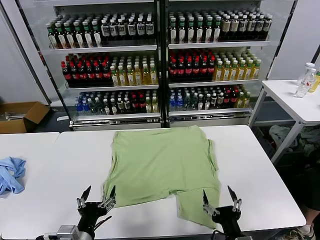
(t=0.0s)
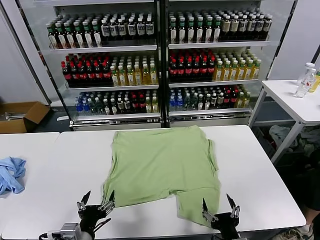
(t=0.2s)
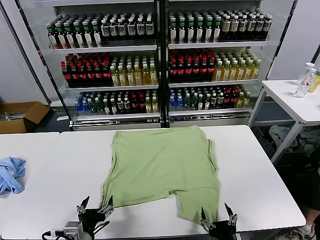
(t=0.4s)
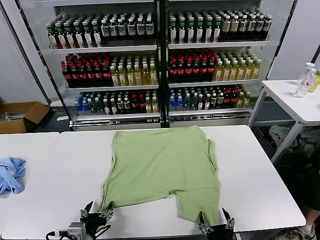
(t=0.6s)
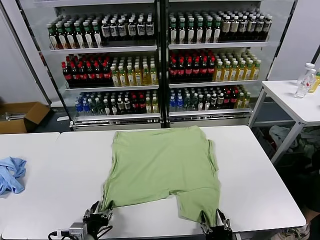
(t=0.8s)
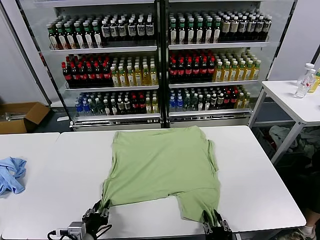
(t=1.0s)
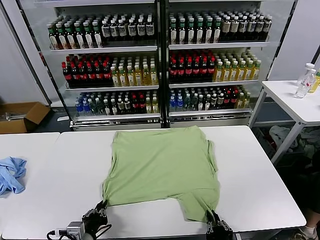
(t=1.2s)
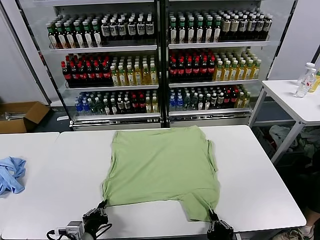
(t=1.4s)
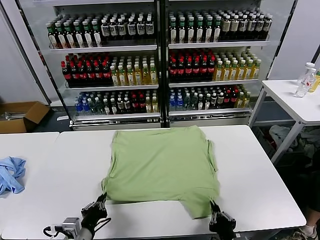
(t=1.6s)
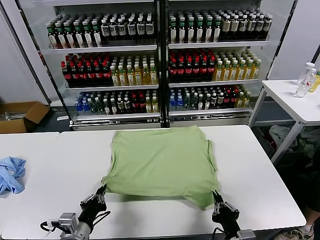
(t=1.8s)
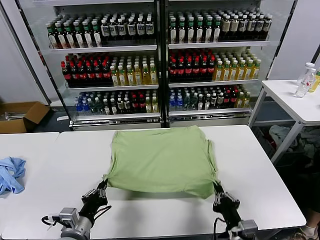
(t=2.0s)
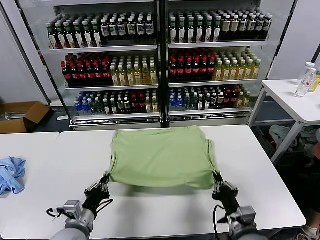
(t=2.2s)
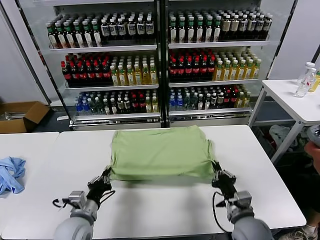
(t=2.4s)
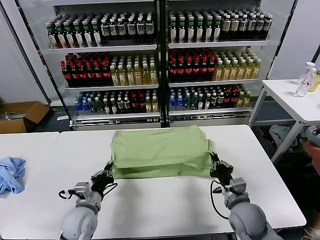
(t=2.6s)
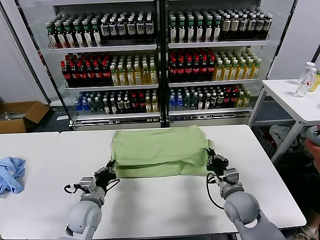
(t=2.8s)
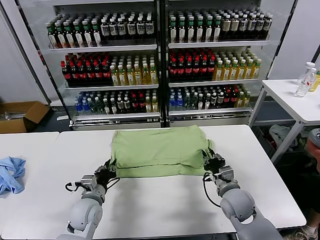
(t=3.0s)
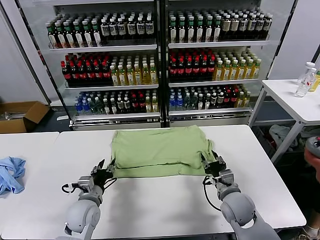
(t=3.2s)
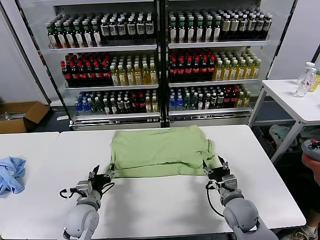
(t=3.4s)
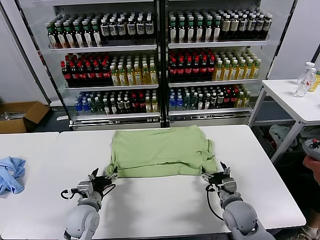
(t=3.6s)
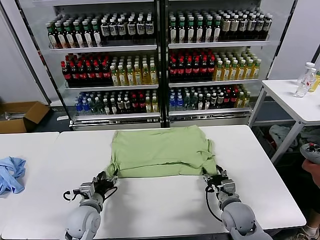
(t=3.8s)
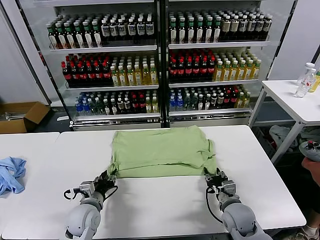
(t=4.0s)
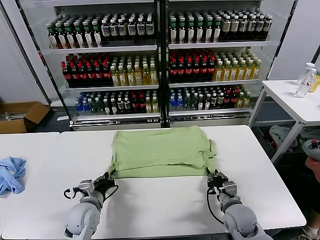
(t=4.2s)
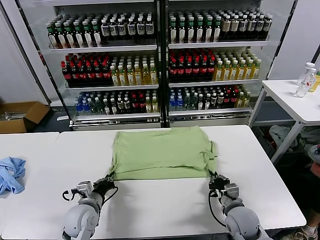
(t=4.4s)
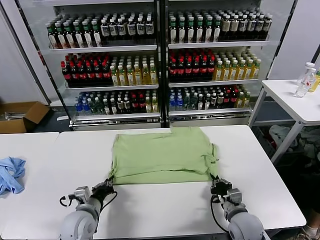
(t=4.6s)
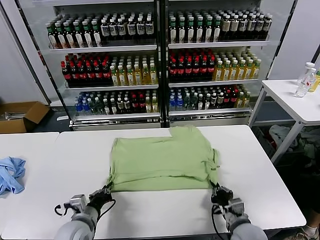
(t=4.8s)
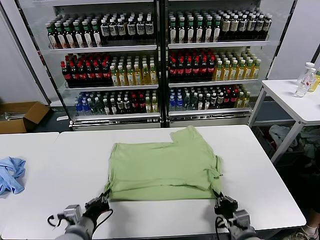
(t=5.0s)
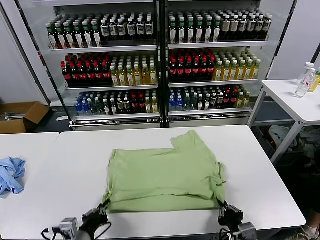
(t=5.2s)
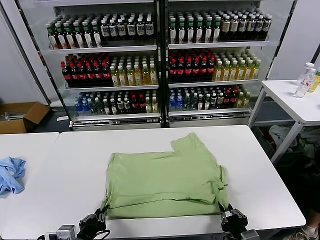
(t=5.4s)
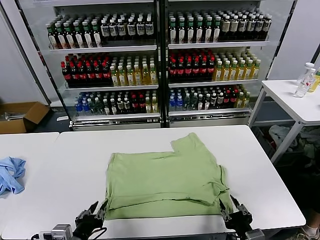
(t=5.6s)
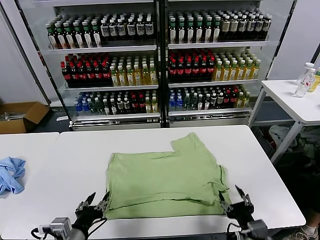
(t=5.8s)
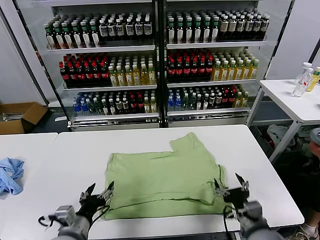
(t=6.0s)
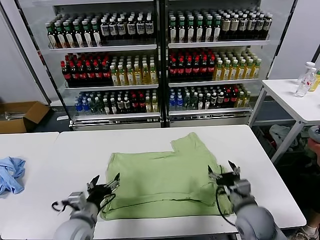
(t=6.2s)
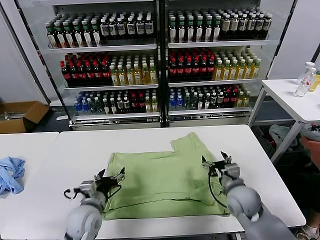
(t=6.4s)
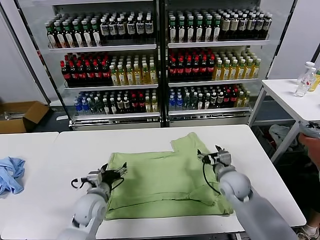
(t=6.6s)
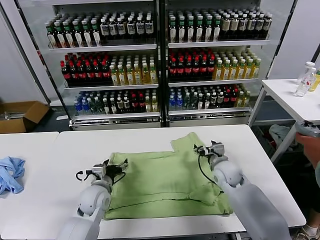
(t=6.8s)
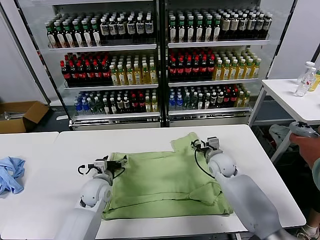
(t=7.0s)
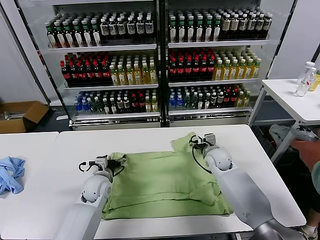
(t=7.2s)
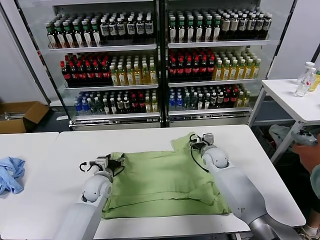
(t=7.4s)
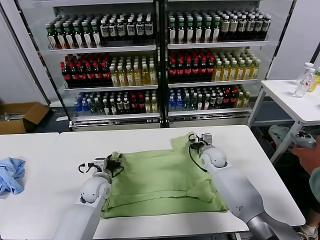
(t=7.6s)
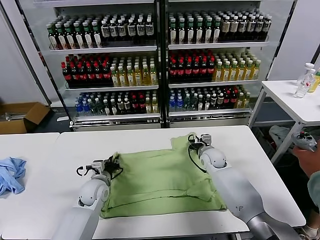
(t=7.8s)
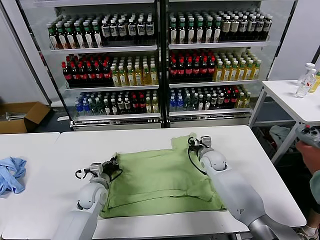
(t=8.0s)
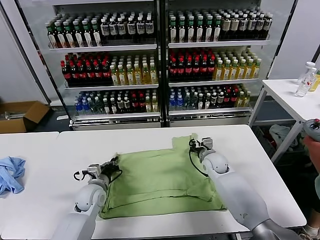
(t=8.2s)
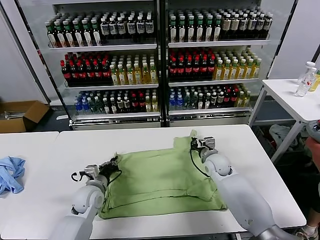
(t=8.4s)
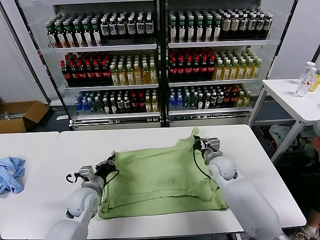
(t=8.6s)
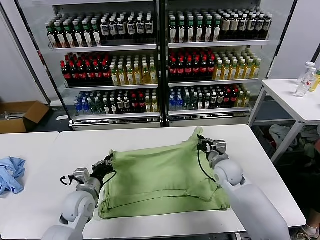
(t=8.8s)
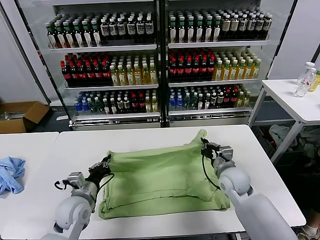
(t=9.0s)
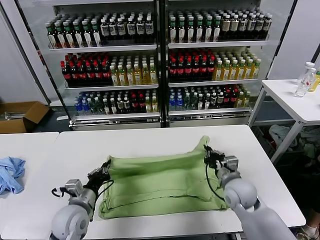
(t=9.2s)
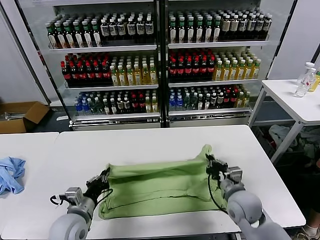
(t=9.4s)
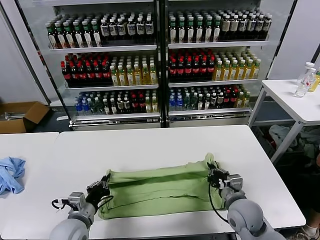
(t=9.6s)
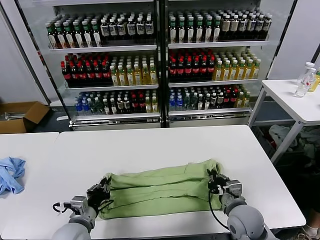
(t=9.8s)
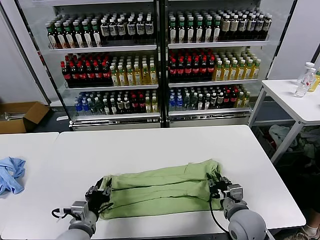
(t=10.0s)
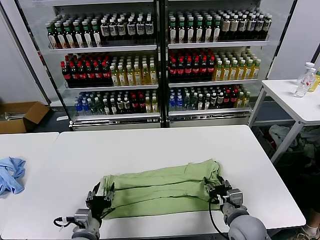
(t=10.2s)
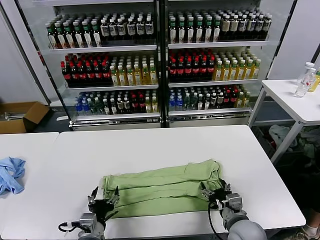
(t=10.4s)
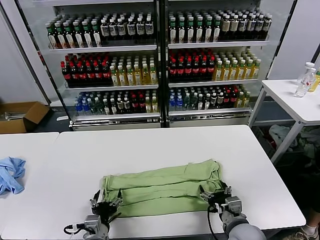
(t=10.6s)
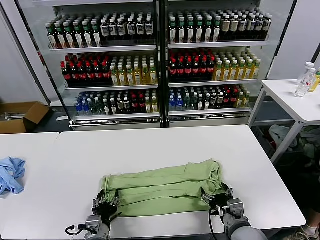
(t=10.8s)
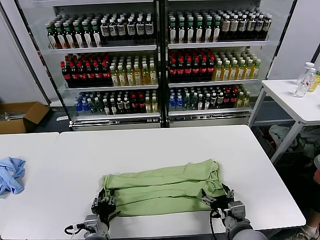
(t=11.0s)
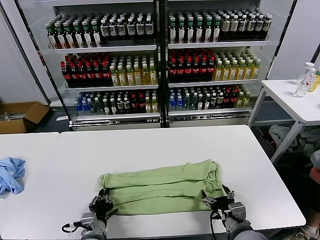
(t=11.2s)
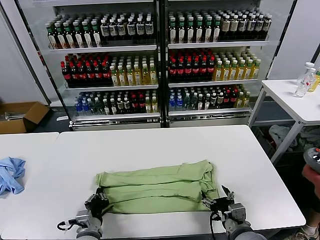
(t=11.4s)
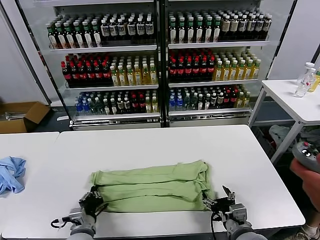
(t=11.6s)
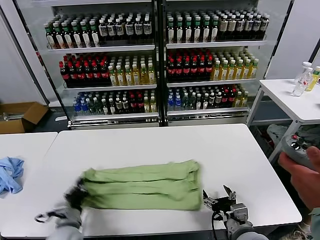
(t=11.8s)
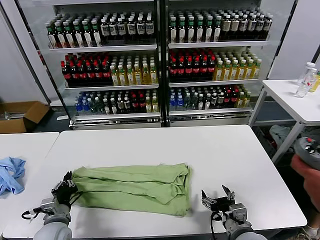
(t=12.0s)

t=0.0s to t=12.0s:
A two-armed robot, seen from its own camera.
Task of the whole recording: fold and organize the clothes.
Step, t=0.0s to t=1.4s: use both grippers simultaneously to clamp the lower edge of the clothing fabric.
Step, t=1.6s to t=3.2s: use both grippers to drag the lower edge of the fabric forward and fold it over the upper edge.
Step, t=3.4s to t=5.4s: Drag the clothes downward with both gripper.
Step, t=5.6s to t=7.8s: use both grippers simultaneously to clamp the upper edge of the clothing fabric.
Step, t=8.2s to t=10.0s: use both grippers to drag the upper edge of the fabric backward and fold it over the lower edge.
Step, t=10.2s to t=11.0s: use the left gripper to clamp the left edge of the fabric.
t=1.6s to t=3.0s: The grippers both shift forward by about 15 cm. The right gripper opens. Meanwhile the left gripper opens up.
t=3.0s to t=4.4s: The right gripper changes place by about 5 cm, and closes. Meanwhile the left gripper opens, then closes again.
t=4.4s to t=6.0s: The right gripper moves upward, approximately 10 cm, goes backward and returns, approximately 15 cm each way, and opens its fingers; the left gripper goes about 10 cm backward and upward, and opens.
t=6.0s to t=7.6s: Both grippers travel together forward, approximately 25 cm. The left gripper closes up; the right gripper closes up.
t=7.6s to t=9.0s: The two grippers go approximately 10 cm backward. The left gripper closes up. Meanwhile the right gripper closes its fingers.
t=9.0s to t=10.4s: The left gripper heads backward and to the right, covering roughly 15 cm, and opens up; the right gripper is displaced backward by some 15 cm, and opens.
t=10.4s to t=12.0s: The left gripper heads to the left and forward, covering some 15 cm, and closes.

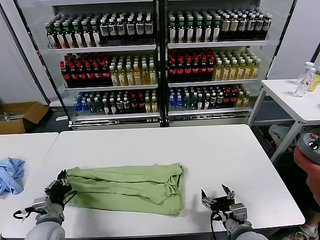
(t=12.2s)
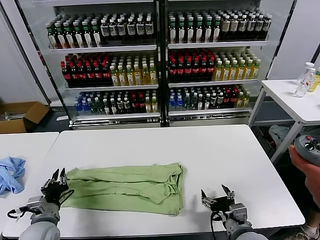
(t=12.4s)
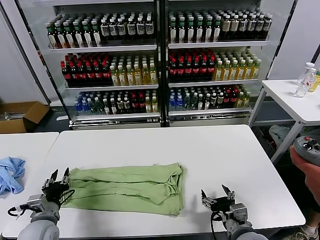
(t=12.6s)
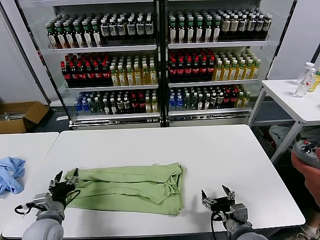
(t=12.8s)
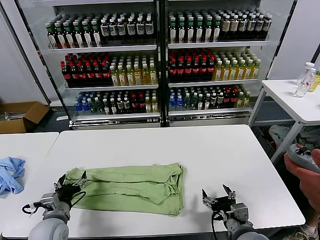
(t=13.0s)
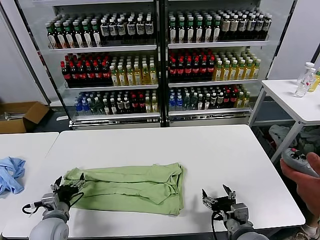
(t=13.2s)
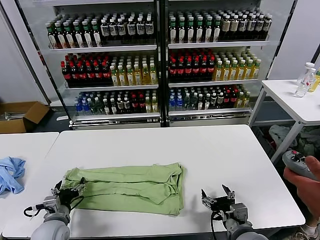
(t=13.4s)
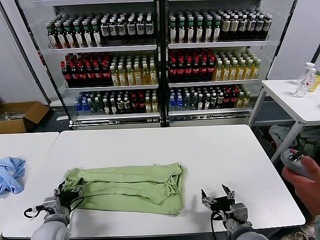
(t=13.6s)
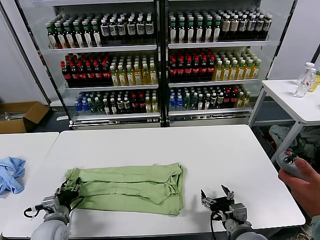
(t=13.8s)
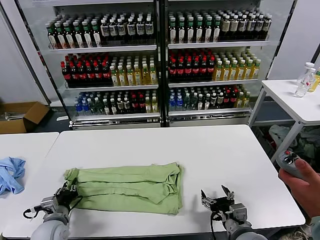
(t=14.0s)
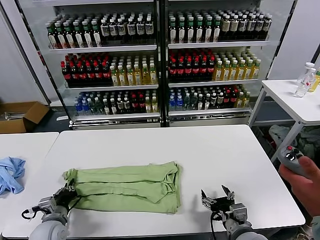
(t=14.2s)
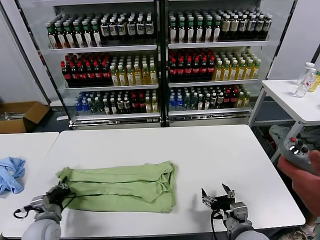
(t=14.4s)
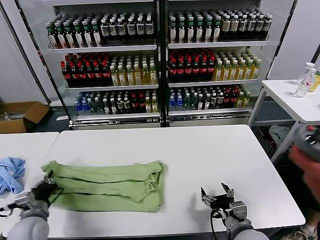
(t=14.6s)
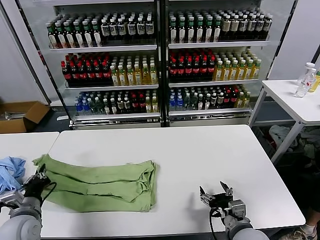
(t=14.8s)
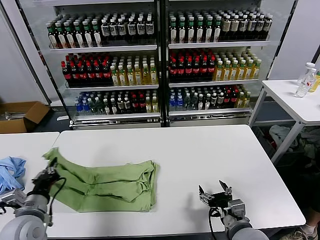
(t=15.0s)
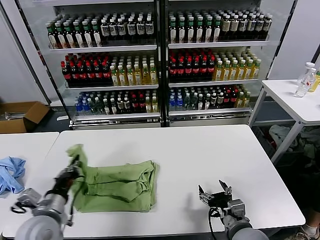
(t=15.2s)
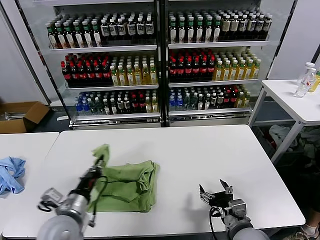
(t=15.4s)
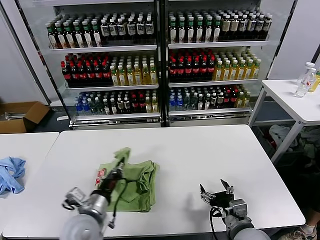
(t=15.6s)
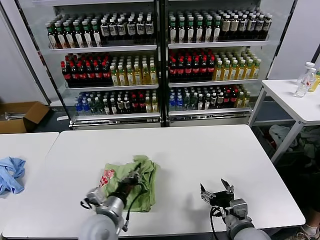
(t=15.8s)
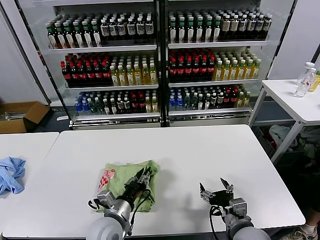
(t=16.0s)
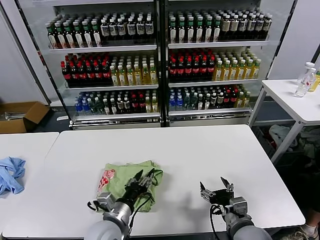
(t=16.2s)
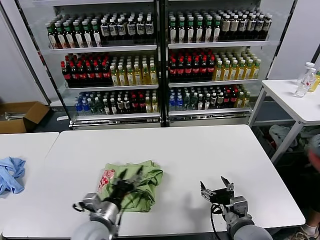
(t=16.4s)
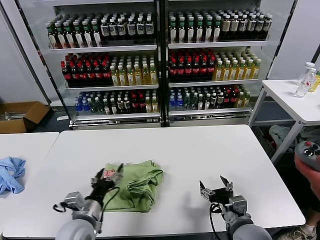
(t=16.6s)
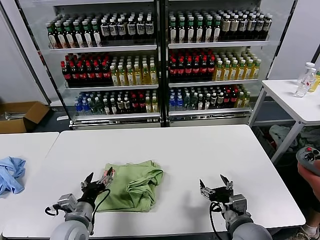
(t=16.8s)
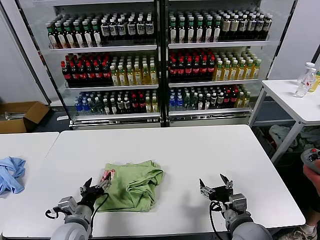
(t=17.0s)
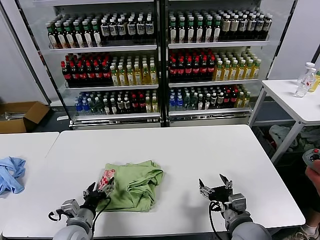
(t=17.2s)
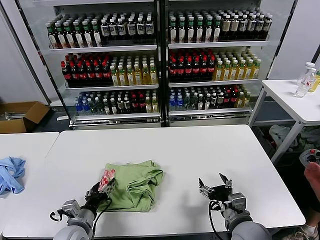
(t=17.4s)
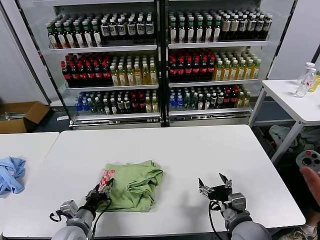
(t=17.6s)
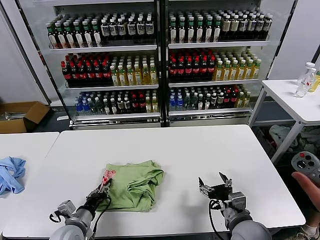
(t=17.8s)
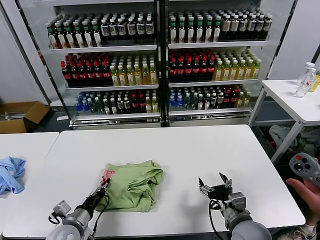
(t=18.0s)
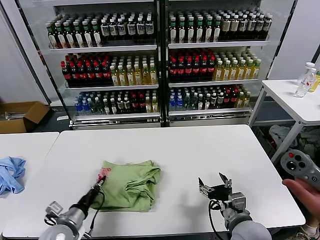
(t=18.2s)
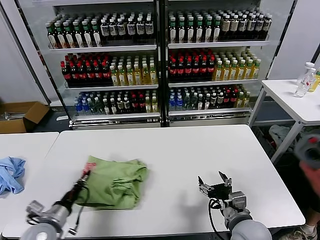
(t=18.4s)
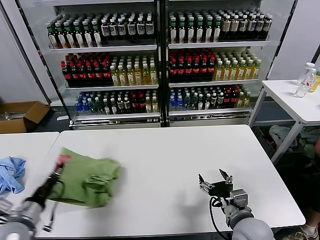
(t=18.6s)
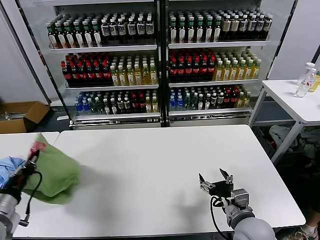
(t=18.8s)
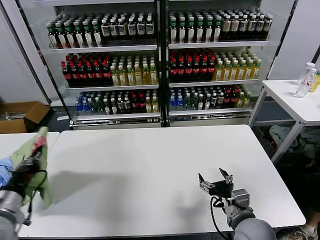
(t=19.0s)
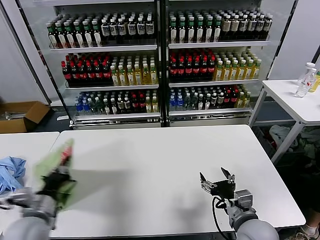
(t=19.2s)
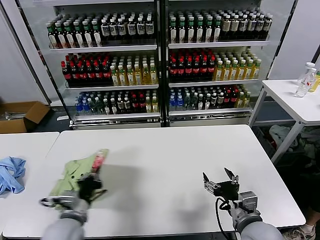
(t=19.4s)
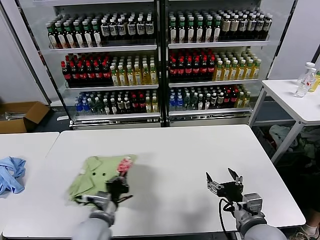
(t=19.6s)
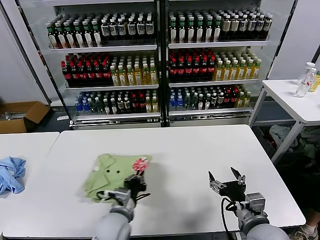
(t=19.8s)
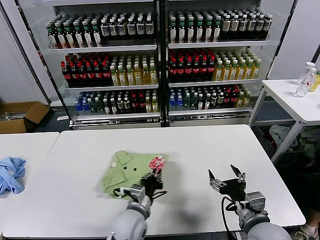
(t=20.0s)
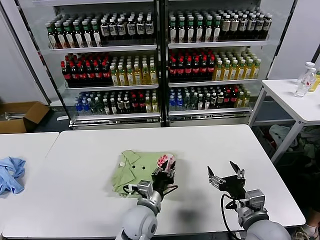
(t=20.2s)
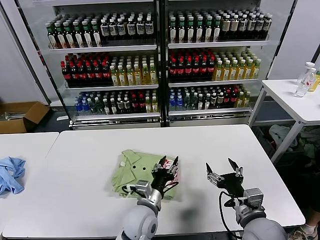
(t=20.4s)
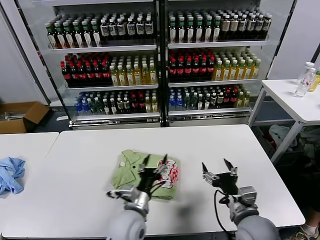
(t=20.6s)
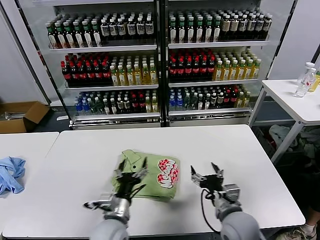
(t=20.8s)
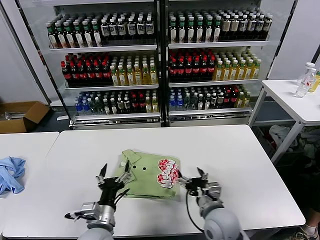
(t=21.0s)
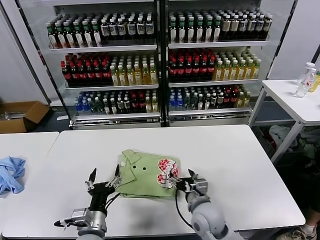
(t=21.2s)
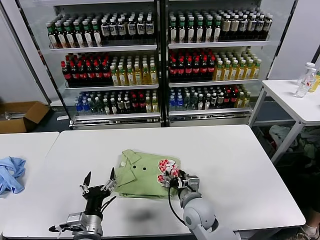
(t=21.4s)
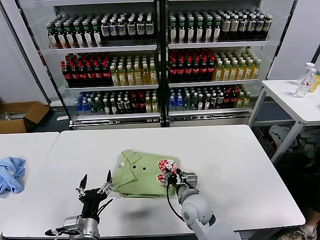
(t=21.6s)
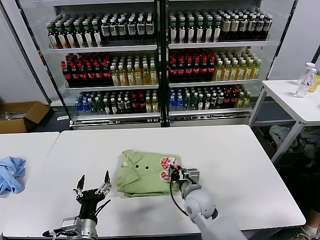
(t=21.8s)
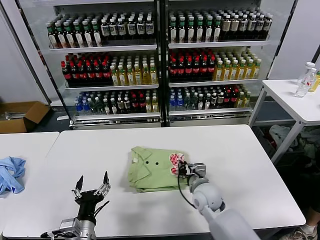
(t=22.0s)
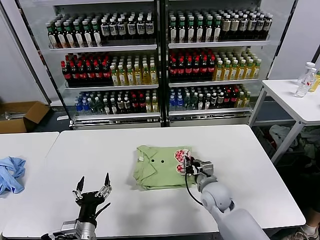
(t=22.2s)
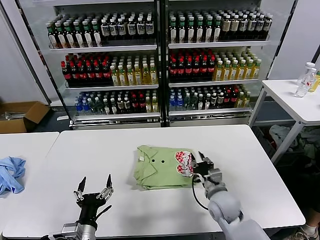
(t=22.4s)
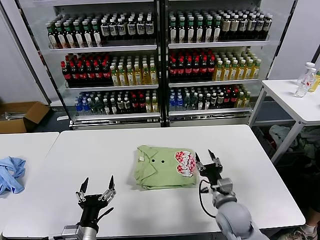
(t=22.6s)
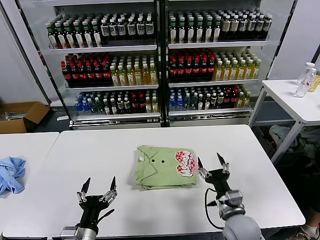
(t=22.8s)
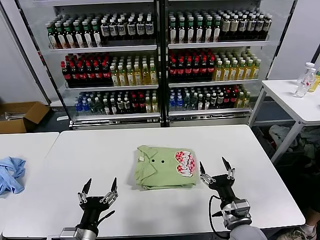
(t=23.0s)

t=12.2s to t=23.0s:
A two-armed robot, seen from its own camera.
Task of the whole recording: fold and organize the clothes.
Step, t=12.2s to t=16.0s: use the left gripper to drag the left edge of the fabric to the left and folds it over the right edge.
Step, t=16.2s to t=20.2s: Flip the folded clothes over with left gripper.
Step, t=20.4s to t=22.4s: Drag the clothes to the center of the table.
t=12.2s to t=13.8s: The left gripper opens.
t=13.8s to t=15.2s: The left gripper heads upward, covering about 10 cm, and closes its fingers.
t=15.2s to t=16.8s: The left gripper shifts about 10 cm downward and to the right, and opens.
t=16.8s to t=18.4s: The left gripper heads to the left, covering about 10 cm, and closes up.
t=18.4s to t=20.0s: The left gripper goes about 25 cm to the right.
t=20.0s to t=21.4s: The right gripper heads to the left, forward and downward, covering some 20 cm, while the left gripper goes approximately 15 cm to the left and backward, and opens its fingers.
t=21.4s to t=23.0s: The right gripper moves to the right and backward, some 15 cm, and closes, then opens again.
